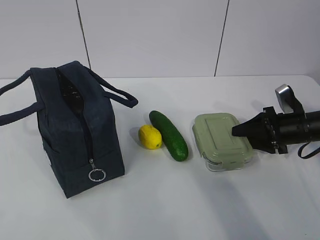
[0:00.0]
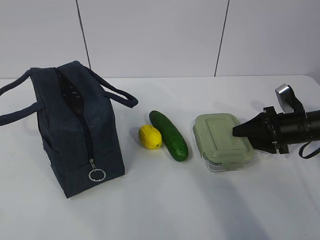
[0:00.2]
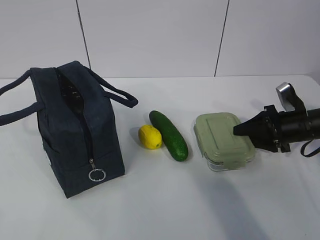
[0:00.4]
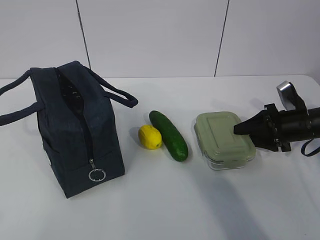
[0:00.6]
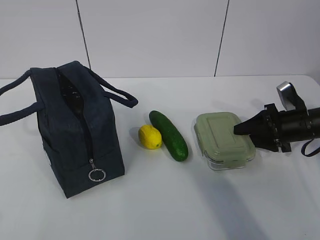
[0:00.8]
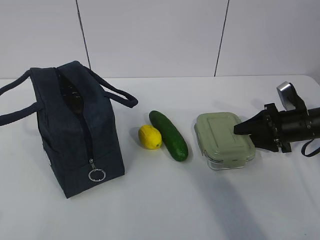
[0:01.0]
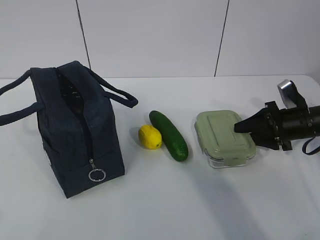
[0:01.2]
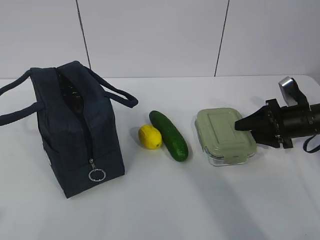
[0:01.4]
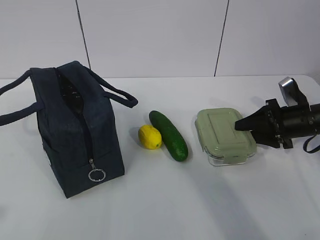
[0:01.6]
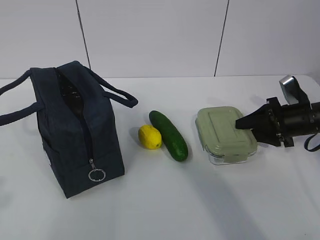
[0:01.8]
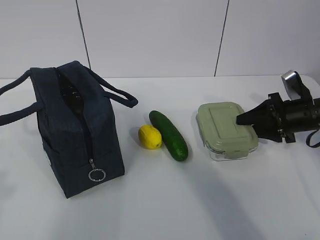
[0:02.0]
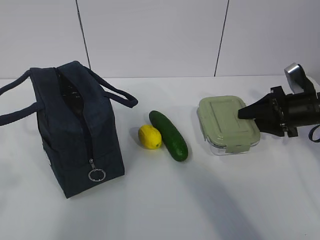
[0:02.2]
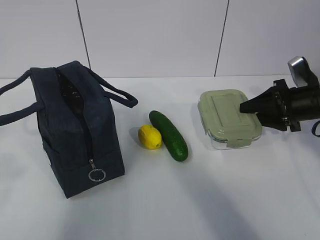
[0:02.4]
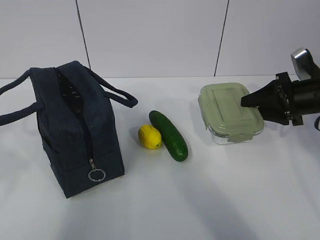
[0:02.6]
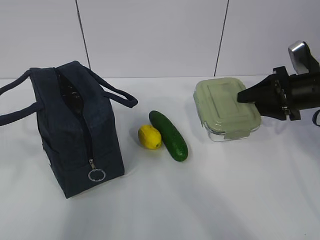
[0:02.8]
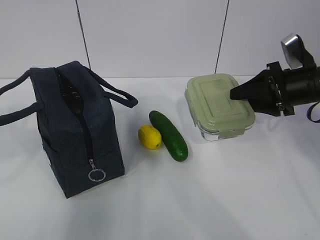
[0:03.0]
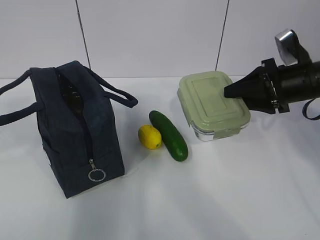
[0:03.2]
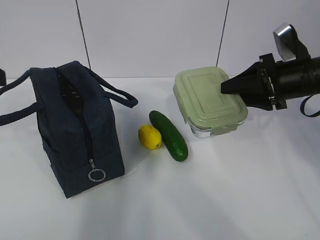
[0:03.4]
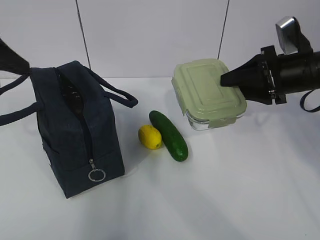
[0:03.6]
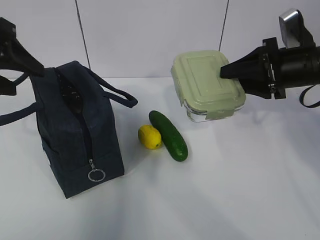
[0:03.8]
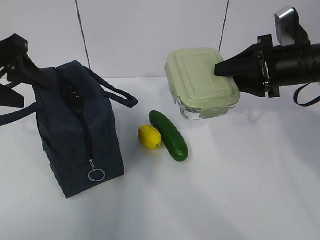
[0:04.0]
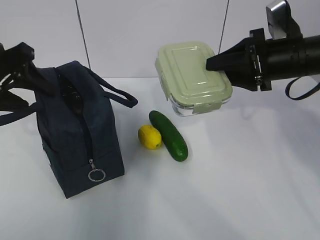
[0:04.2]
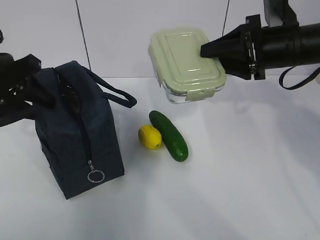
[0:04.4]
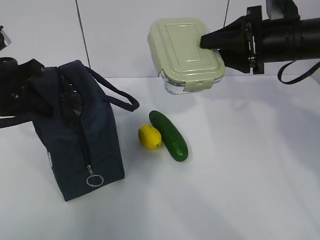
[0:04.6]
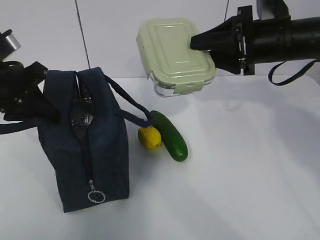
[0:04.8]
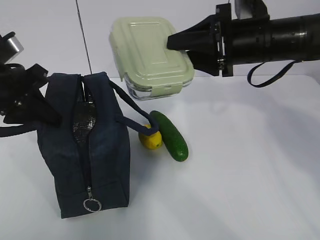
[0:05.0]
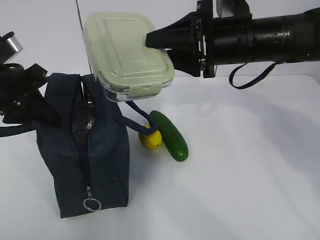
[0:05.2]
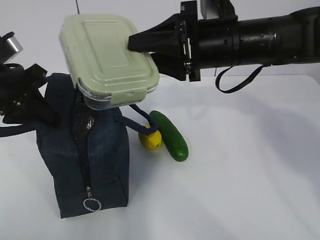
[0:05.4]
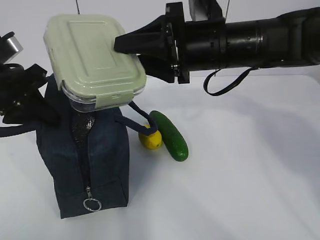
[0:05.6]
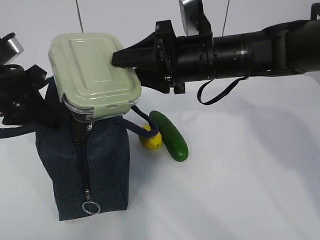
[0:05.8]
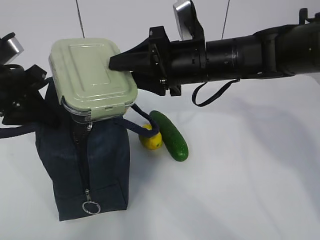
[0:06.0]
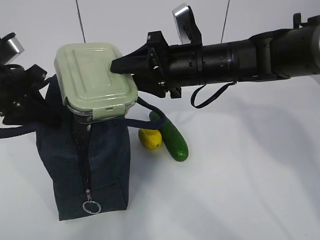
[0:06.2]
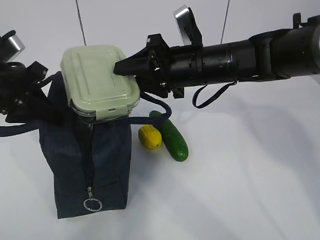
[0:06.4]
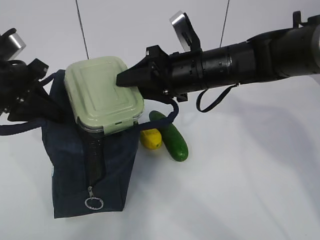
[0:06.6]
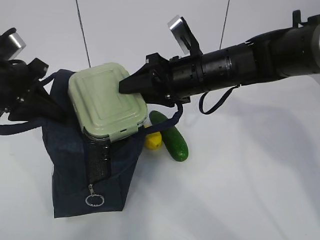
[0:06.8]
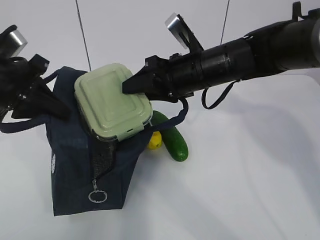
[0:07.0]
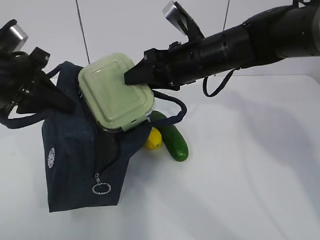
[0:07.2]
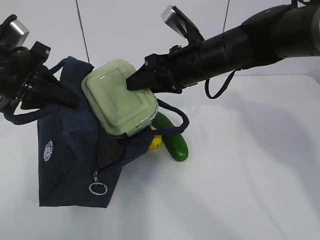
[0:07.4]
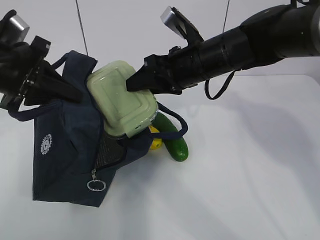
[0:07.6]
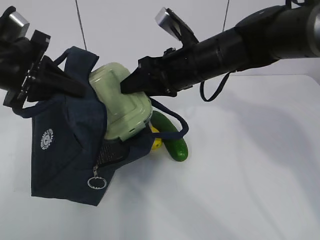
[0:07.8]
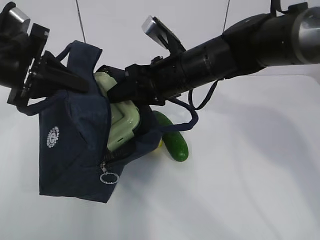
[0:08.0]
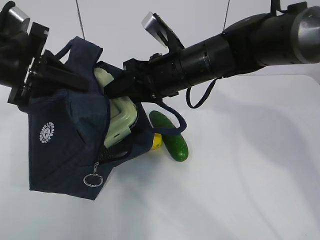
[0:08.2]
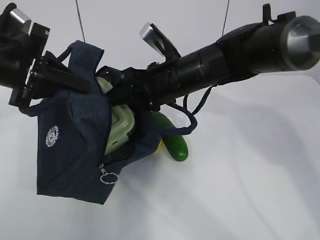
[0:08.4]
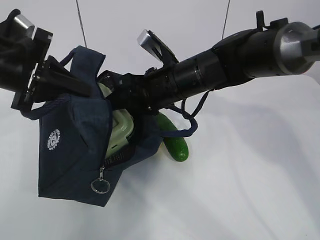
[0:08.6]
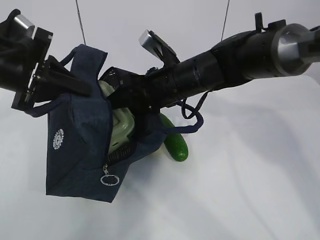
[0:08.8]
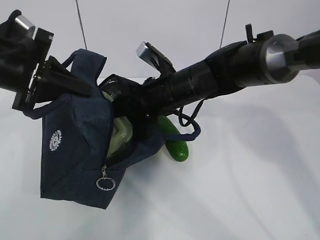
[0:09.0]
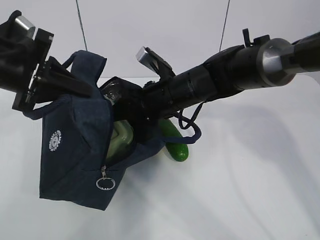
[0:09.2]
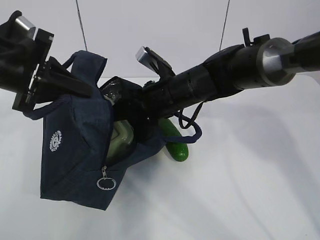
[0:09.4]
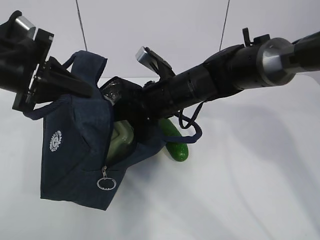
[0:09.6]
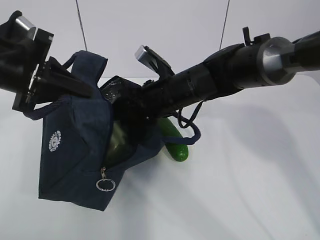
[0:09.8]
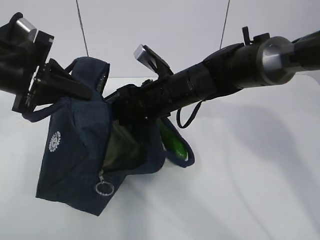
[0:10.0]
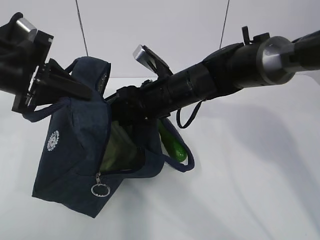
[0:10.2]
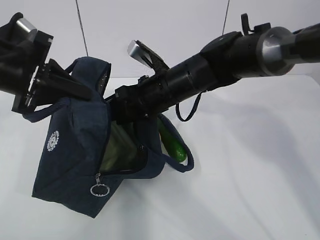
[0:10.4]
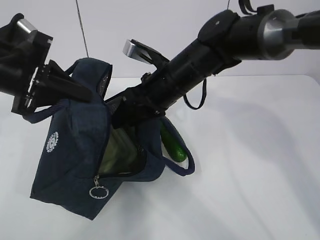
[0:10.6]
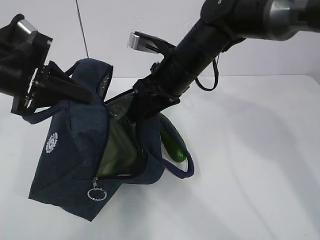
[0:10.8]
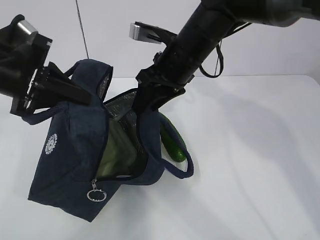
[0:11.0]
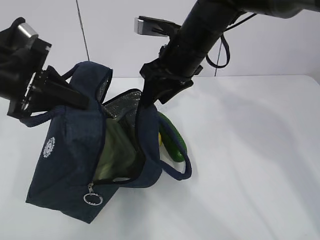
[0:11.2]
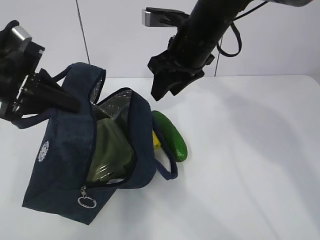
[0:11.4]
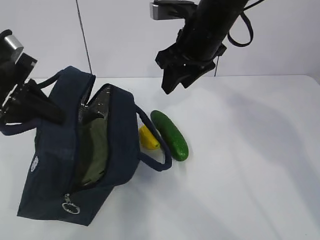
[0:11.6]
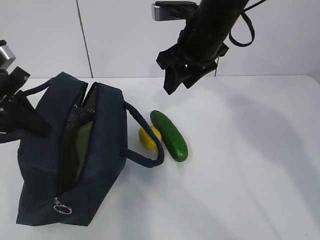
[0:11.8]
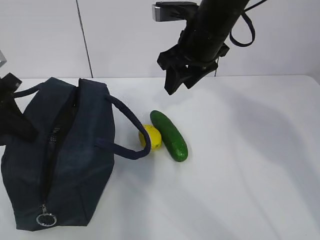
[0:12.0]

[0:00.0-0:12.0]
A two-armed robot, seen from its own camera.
Step, 0:00.0 to 0:02.8: Grab the lunch bag with your left hand.
Step, 0:03.0 to 0:06.2: Place it into the bag with your right hand.
Step, 0:06.4 to 0:10.8: Grab the cucumber with your right hand.
0:00.0 to 0:01.6: The grippers make only small movements.
0:01.6 to 0:03.0: The right gripper heads upward, covering approximately 10 cm, while the left gripper is displaced forward by approximately 10 cm, and opens up.
0:03.0 to 0:04.4: The right gripper is displaced upward and to the left by some 10 cm, while the left gripper travels forward by some 15 cm.
0:04.4 to 0:06.0: The left gripper closes its fingers. The right gripper travels to the left by some 15 cm.
0:07.6 to 0:09.0: The right gripper shifts about 5 cm downward.
0:09.0 to 0:10.4: The grippers make only small movements.
0:10.4 to 0:12.0: The right gripper heads upward and to the right, covering some 10 cm, while the left gripper goes approximately 5 cm to the left.

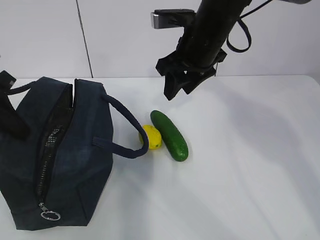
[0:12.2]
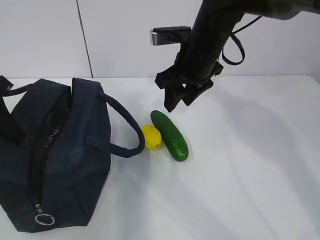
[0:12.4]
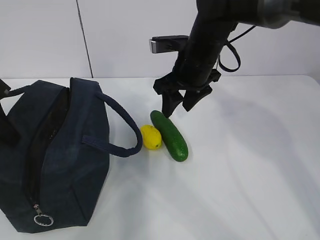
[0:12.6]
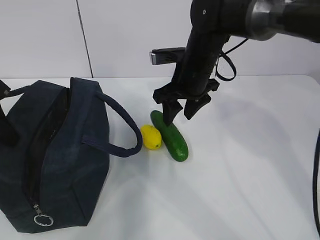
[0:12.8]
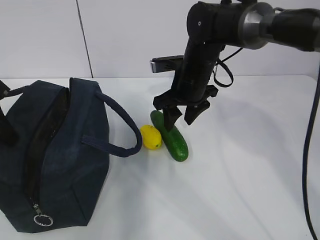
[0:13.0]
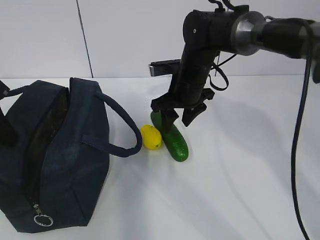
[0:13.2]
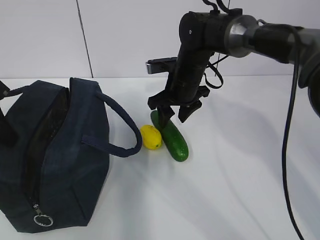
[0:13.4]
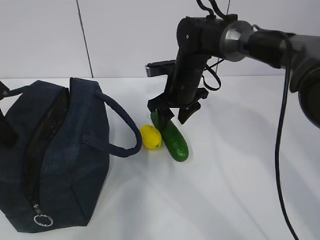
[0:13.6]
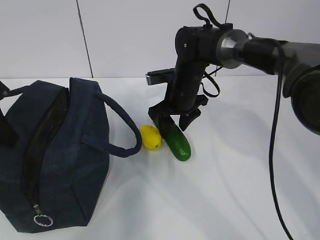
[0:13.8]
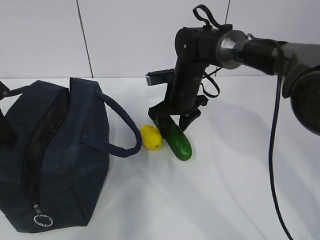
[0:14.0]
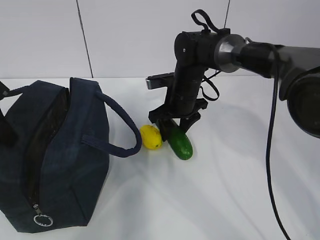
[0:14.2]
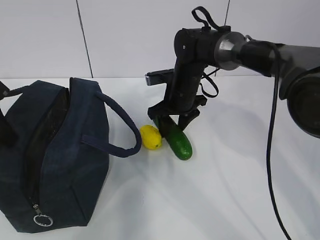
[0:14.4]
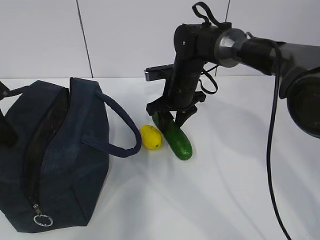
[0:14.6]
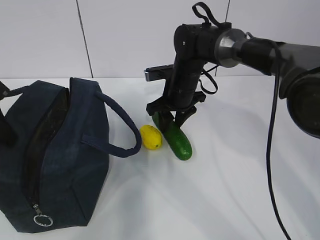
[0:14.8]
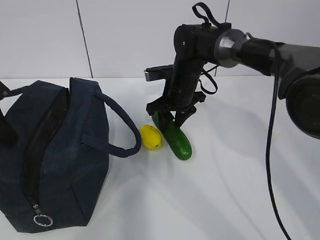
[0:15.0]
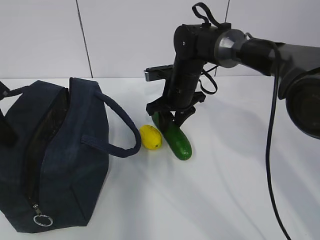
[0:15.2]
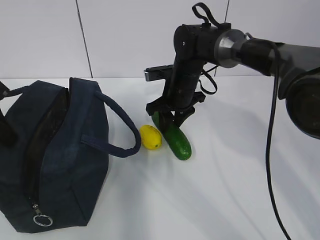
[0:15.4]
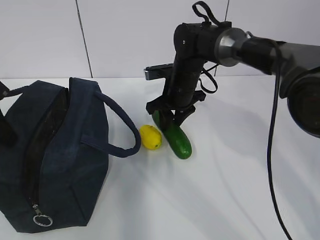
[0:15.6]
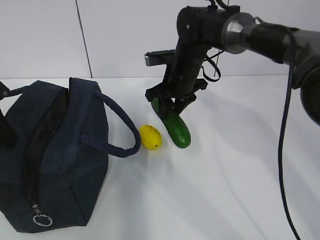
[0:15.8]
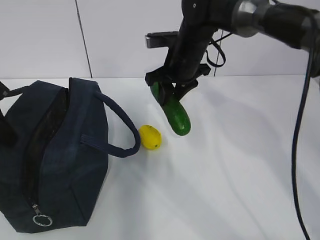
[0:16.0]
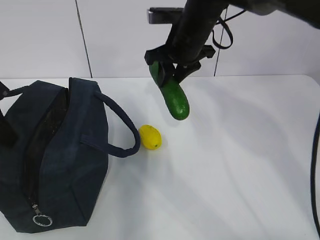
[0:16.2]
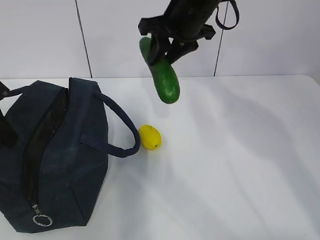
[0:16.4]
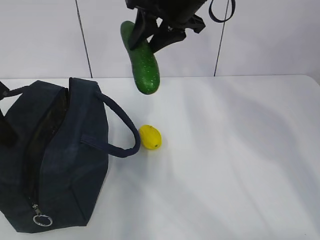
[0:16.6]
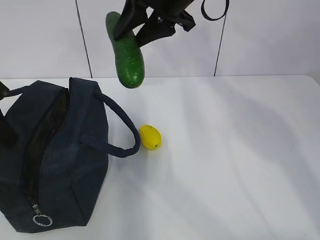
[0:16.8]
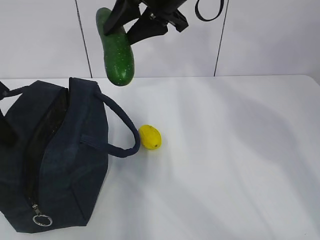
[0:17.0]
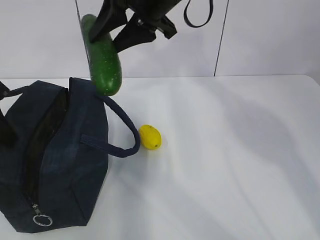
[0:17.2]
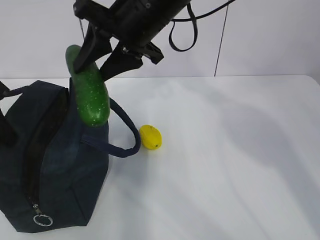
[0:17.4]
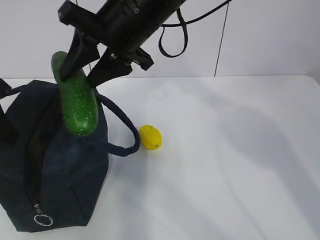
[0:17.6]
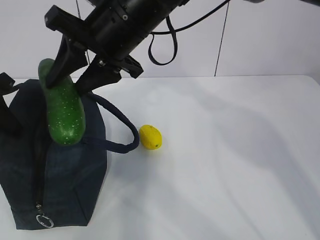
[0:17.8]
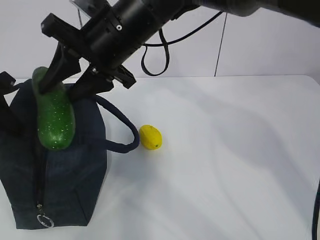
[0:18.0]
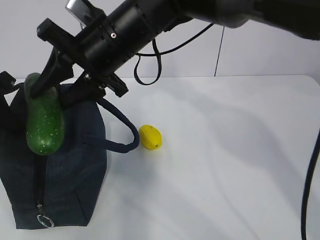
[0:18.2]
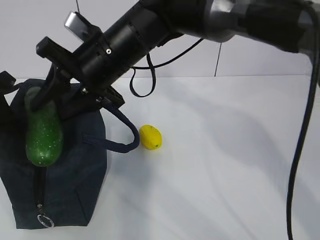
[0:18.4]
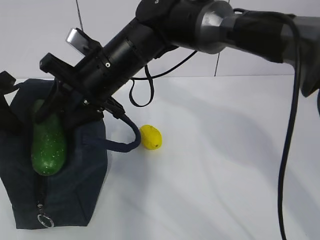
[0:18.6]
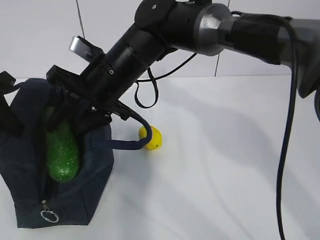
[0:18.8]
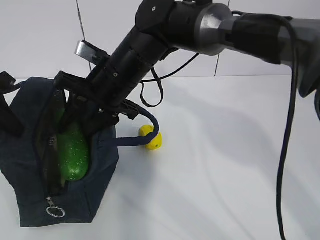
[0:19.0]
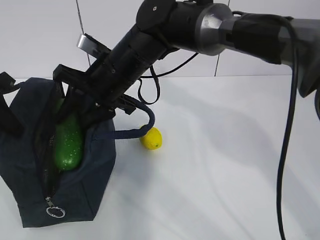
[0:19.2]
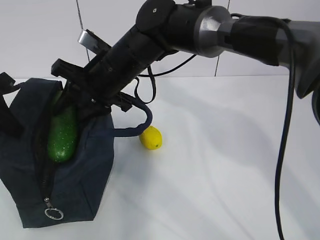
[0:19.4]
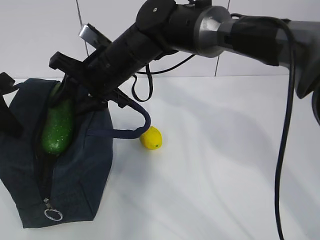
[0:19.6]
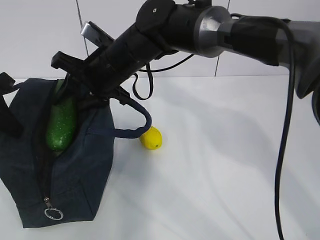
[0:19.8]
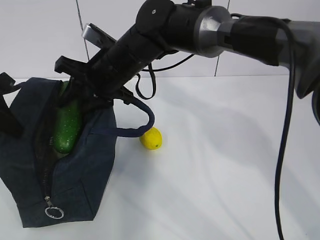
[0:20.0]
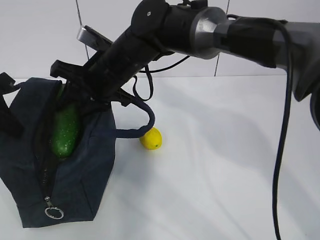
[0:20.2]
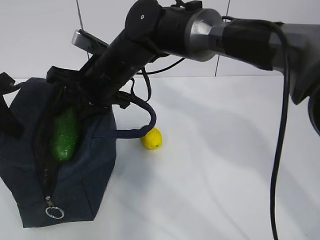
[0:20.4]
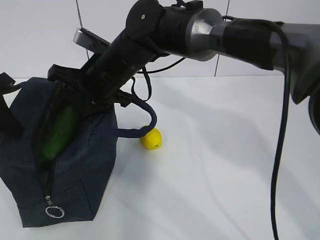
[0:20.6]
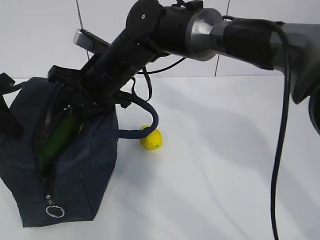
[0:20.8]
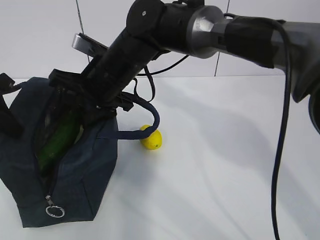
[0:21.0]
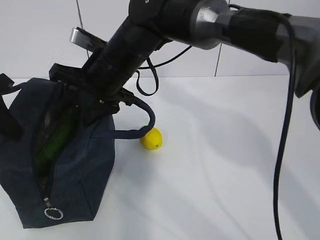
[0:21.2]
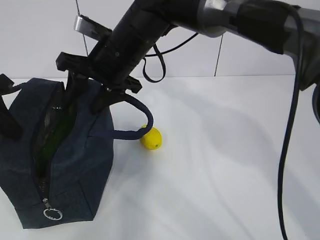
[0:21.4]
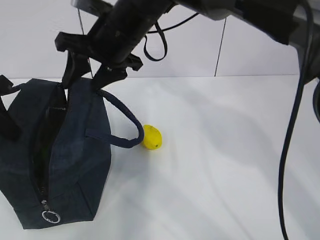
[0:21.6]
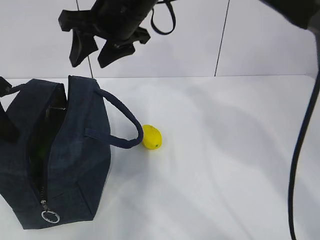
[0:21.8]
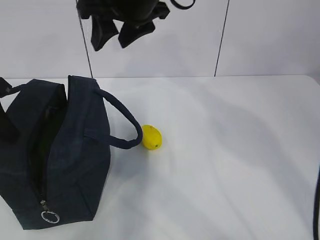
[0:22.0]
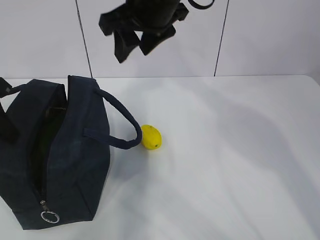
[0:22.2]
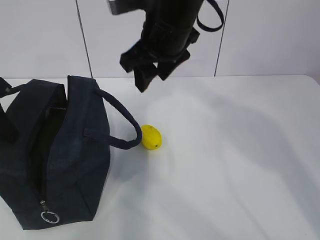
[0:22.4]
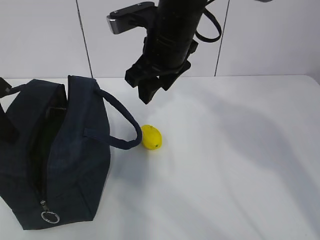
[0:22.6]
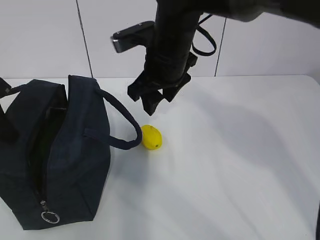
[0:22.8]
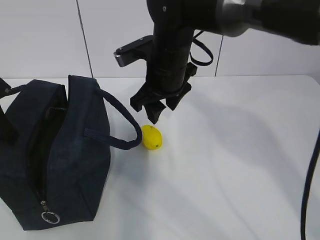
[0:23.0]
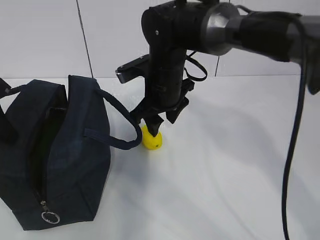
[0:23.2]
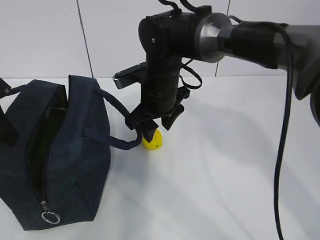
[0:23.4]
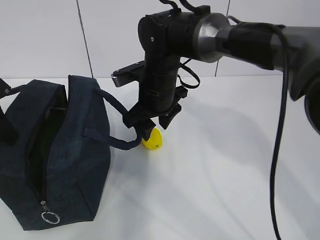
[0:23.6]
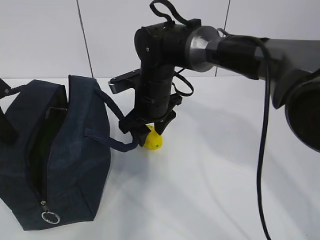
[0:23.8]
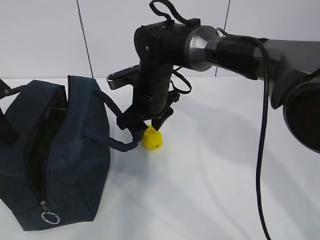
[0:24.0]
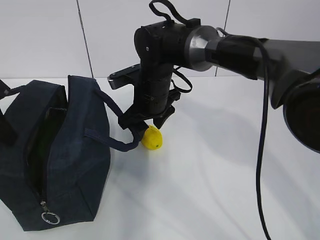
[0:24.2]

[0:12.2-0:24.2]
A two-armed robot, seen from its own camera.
Step, 0:12.2 to 0:15.4: Place it into the bag with your right hand.
Step, 0:15.6 to 0:19.4: Grab the lemon with your right hand.
0:12.2 to 0:13.8: The right gripper goes approximately 15 cm downward and forward.
0:13.8 to 0:15.2: Neither gripper changes place.
0:15.2 to 0:16.6: The right gripper moves upward, approximately 20 cm.
0:16.6 to 0:18.2: The right gripper heads to the left and backward, covering some 10 cm.
0:18.2 to 0:19.8: The right gripper moves downward, some 5 cm.
0:19.8 to 0:21.2: The grippers move only a little.
0:21.2 to 0:22.6: The right gripper is displaced to the right and upward by about 10 cm.
0:22.6 to 0:24.2: The right gripper moves downward, approximately 10 cm.
